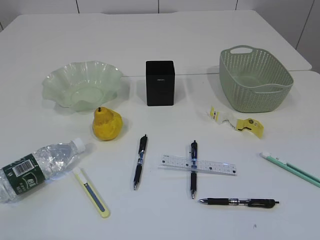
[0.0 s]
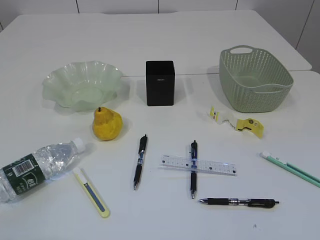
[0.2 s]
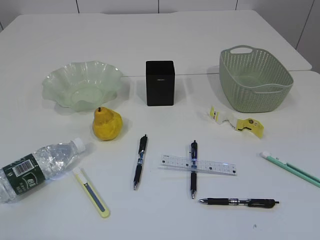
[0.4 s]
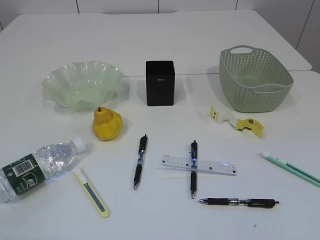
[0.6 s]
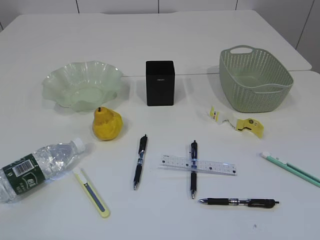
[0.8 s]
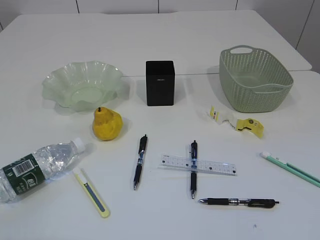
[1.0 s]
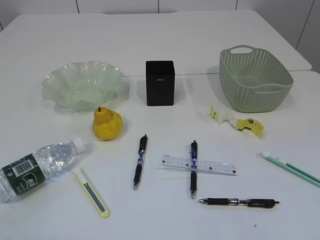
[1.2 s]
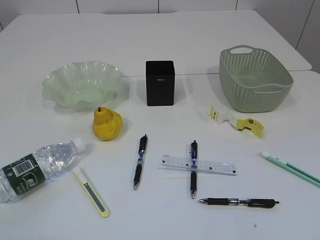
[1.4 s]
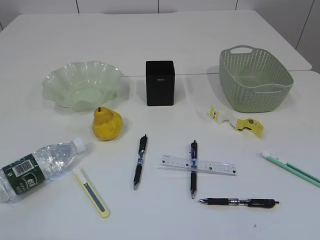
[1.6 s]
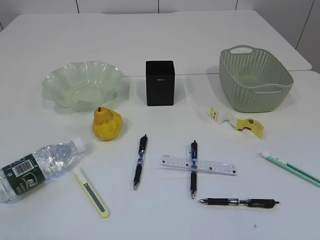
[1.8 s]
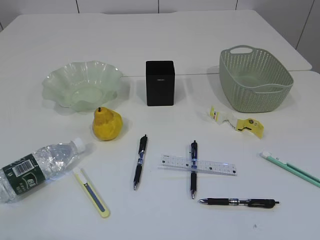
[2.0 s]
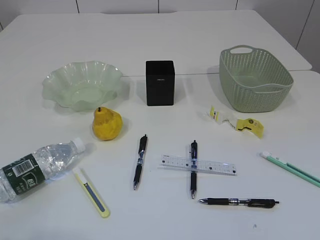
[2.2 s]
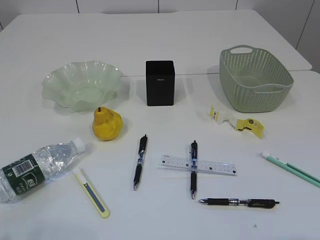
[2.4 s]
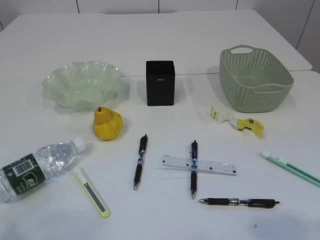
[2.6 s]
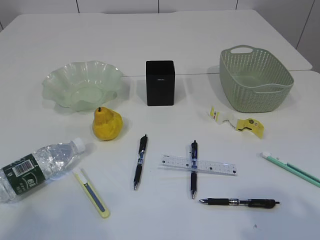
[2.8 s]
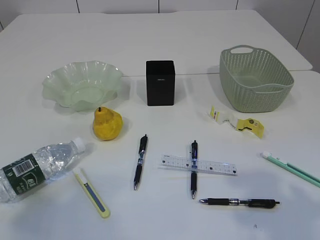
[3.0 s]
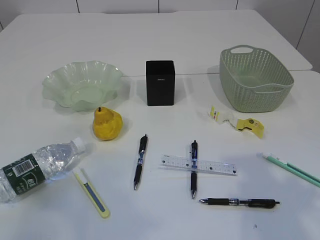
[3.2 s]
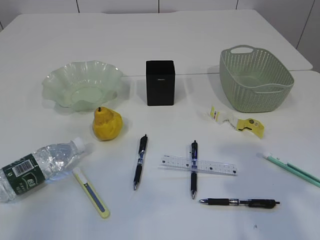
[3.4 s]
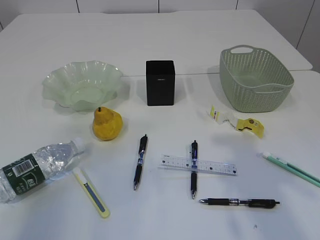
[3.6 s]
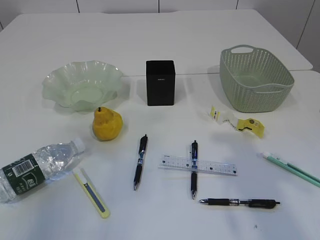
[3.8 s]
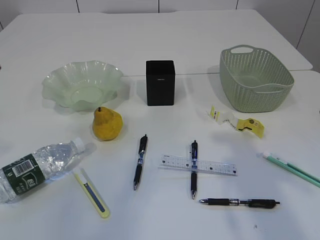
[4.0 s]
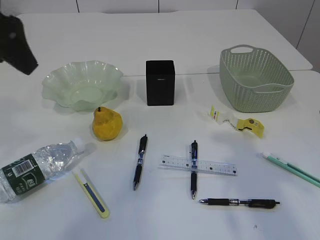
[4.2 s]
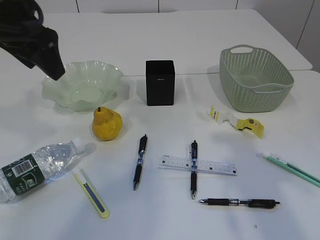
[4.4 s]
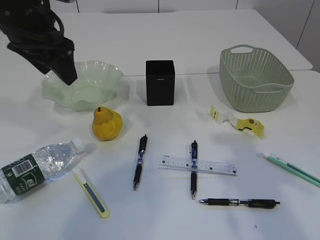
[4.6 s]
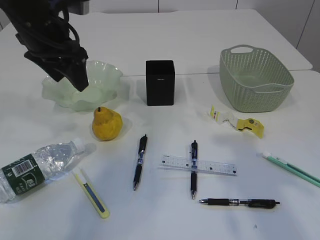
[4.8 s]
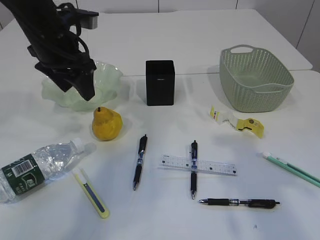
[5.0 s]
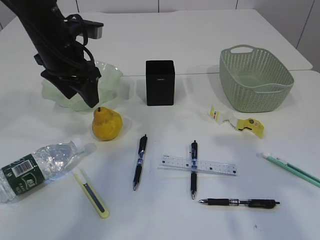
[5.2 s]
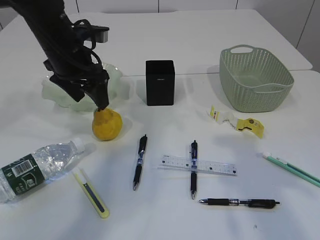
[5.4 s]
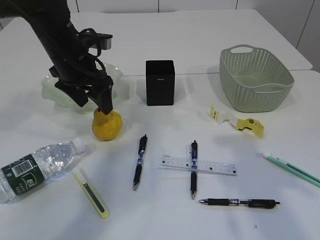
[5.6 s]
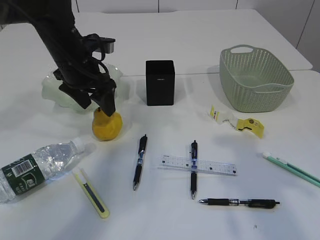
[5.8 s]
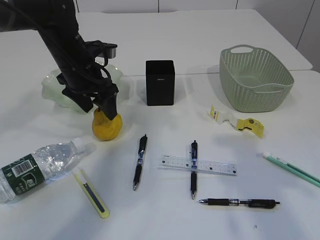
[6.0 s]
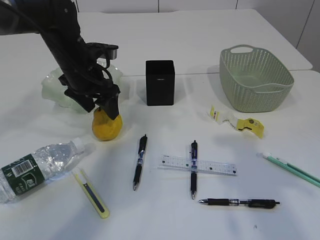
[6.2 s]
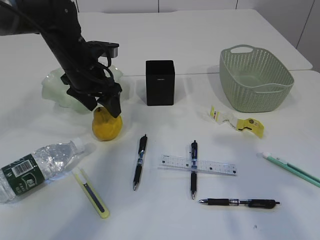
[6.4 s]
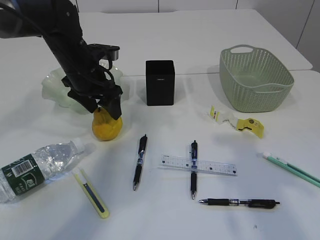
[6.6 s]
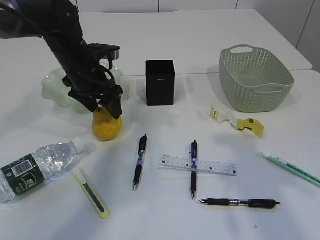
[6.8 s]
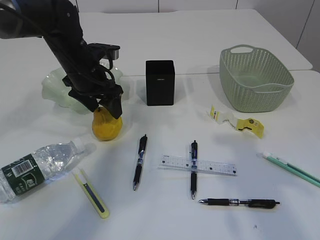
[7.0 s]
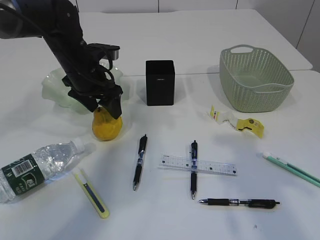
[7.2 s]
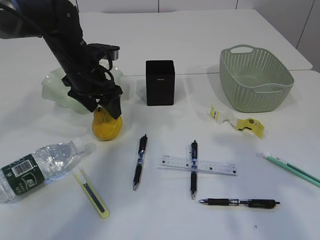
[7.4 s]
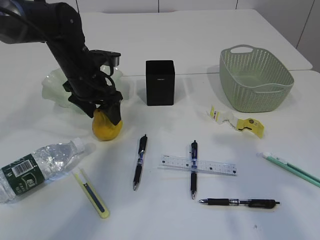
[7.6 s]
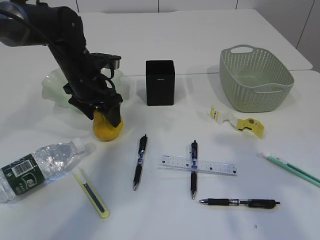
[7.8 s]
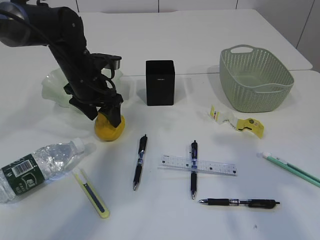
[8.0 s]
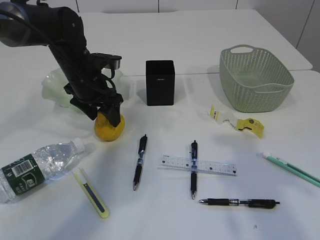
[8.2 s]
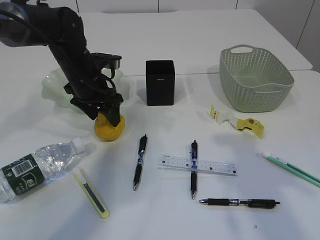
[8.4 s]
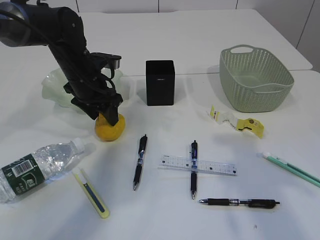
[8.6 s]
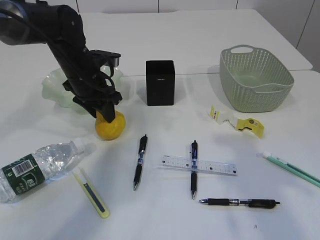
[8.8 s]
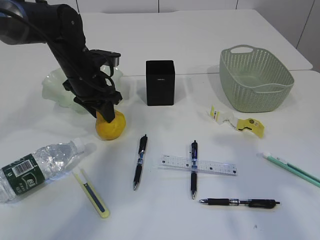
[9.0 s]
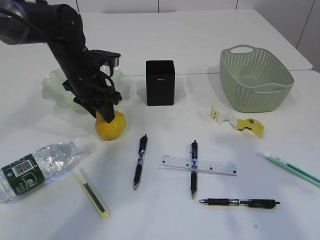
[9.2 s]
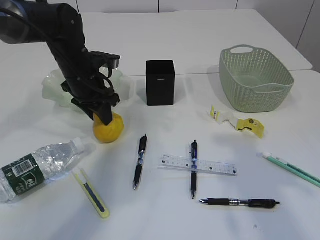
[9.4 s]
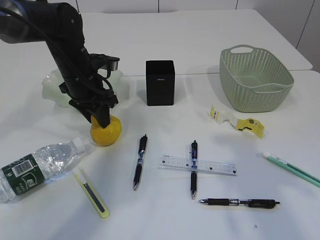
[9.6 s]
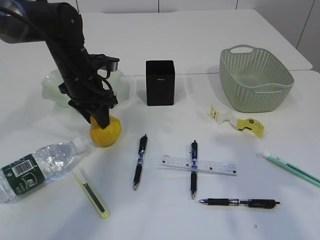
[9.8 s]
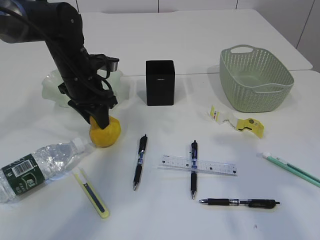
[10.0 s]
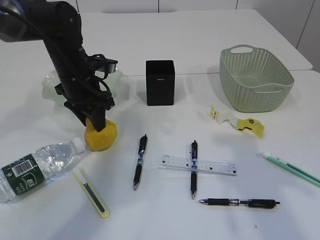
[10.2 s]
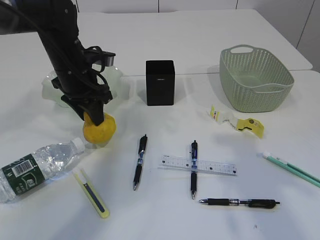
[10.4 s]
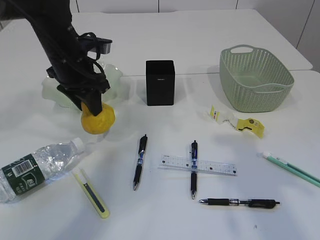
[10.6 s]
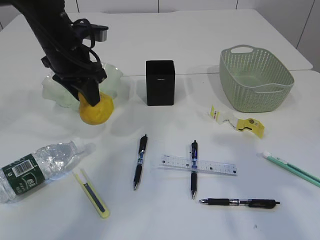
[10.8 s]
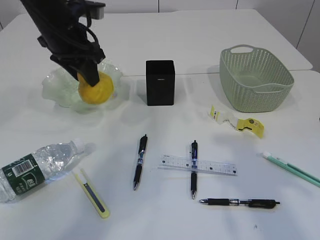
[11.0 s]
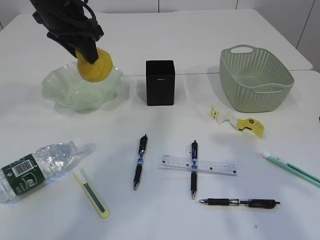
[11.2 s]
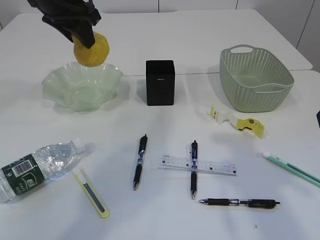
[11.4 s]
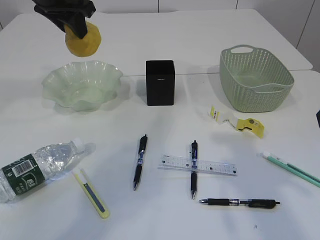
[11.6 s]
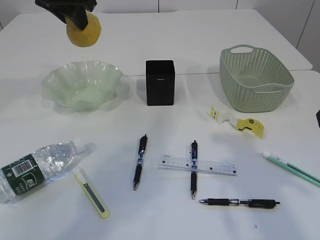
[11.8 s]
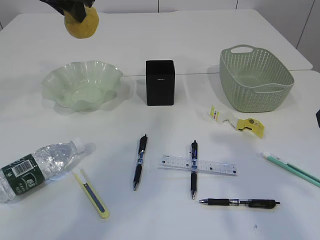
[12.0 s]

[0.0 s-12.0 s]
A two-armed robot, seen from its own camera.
1.6 to 3.0 s: The left gripper is displaced upward and forward by some 10 cm; the right gripper travels forward and upward by roughly 15 cm.
3.0 to 4.4 s: The left gripper travels forward and to the right by approximately 30 cm. The right gripper travels forward by about 10 cm.
4.4 to 6.0 s: The left gripper goes some 20 cm downward and forward.
6.0 to 7.6 s: There are only small adjustments of the grippers.
7.6 to 9.0 s: The left gripper closes its fingers.
9.0 to 10.4 s: The grippers move only a little.
10.4 to 12.0 s: The left gripper moves upward, roughly 15 cm.

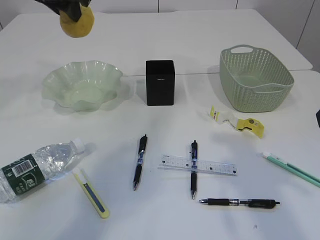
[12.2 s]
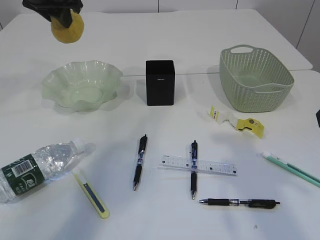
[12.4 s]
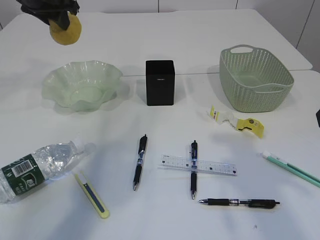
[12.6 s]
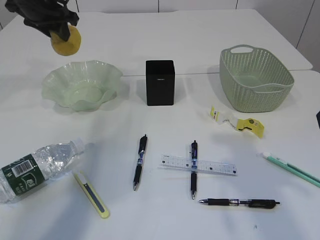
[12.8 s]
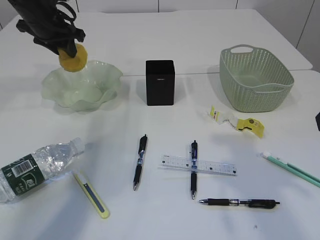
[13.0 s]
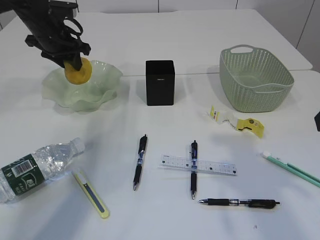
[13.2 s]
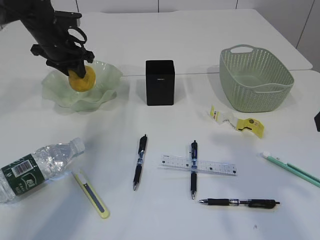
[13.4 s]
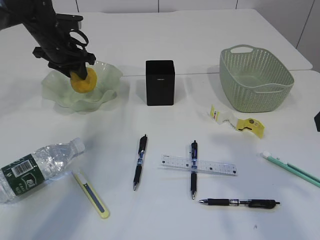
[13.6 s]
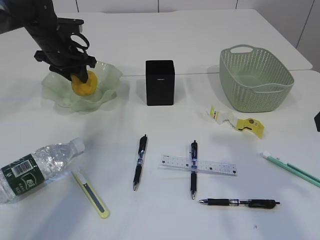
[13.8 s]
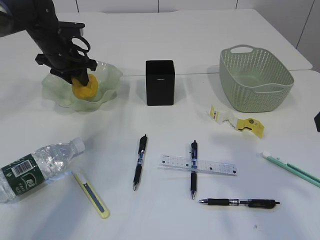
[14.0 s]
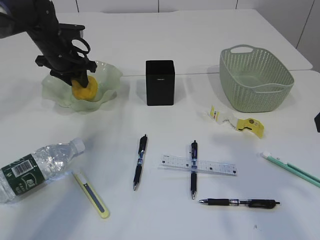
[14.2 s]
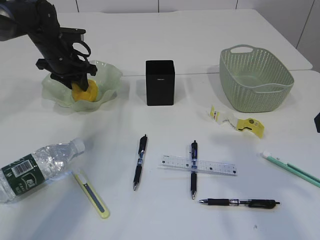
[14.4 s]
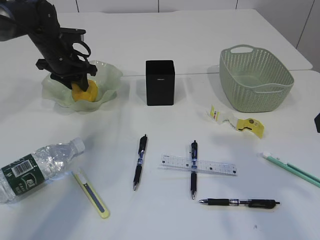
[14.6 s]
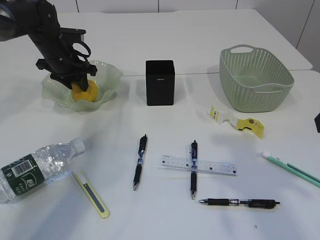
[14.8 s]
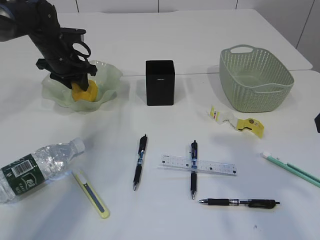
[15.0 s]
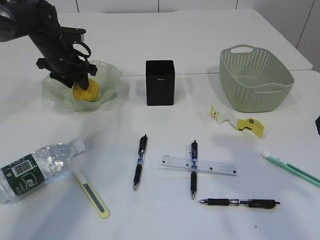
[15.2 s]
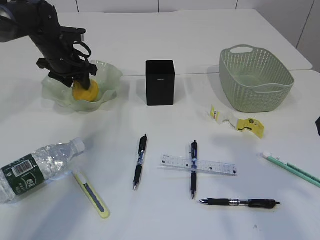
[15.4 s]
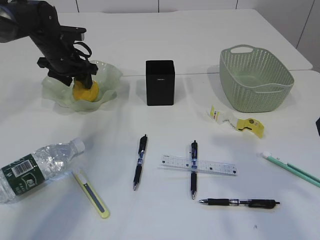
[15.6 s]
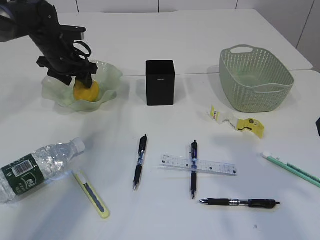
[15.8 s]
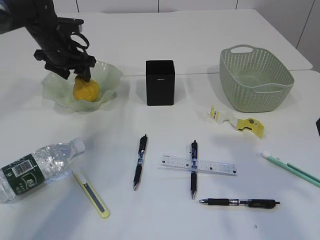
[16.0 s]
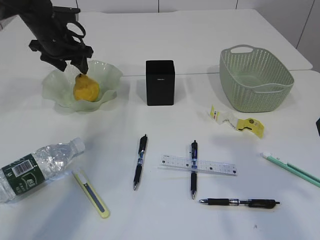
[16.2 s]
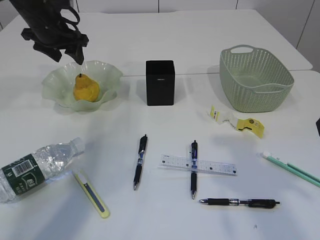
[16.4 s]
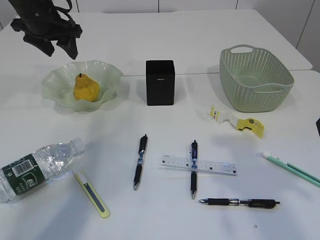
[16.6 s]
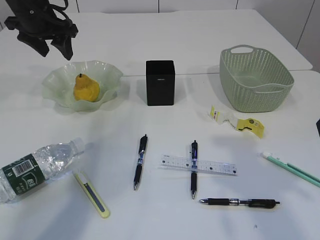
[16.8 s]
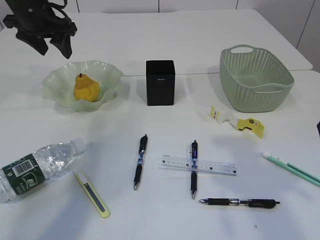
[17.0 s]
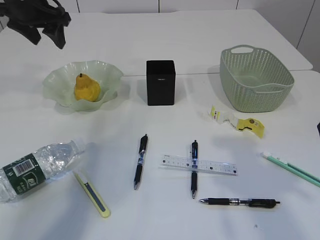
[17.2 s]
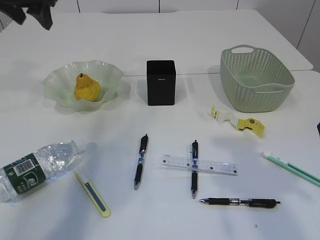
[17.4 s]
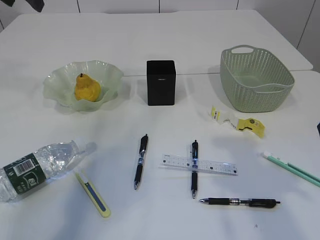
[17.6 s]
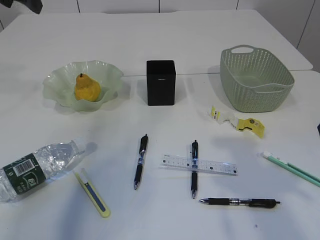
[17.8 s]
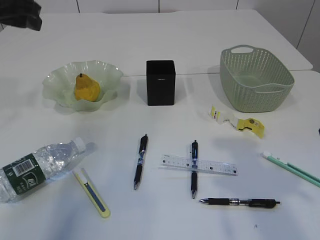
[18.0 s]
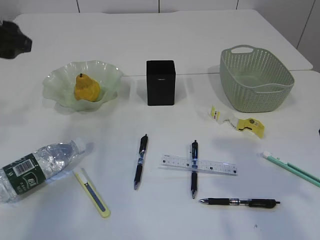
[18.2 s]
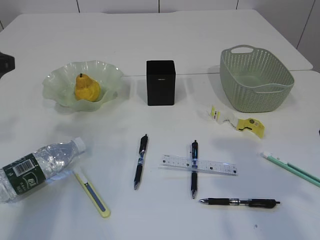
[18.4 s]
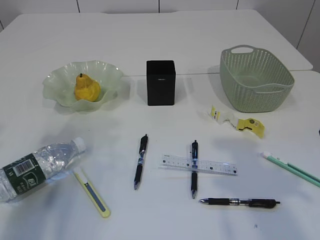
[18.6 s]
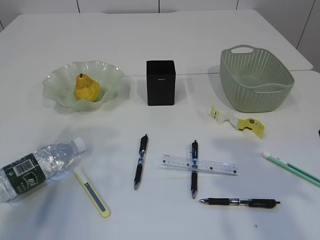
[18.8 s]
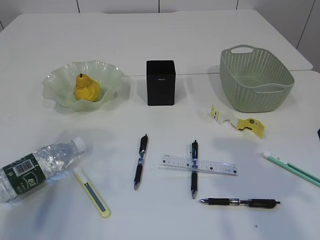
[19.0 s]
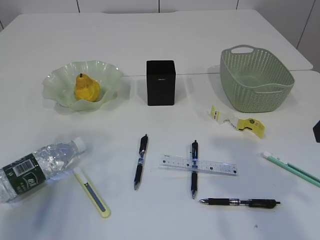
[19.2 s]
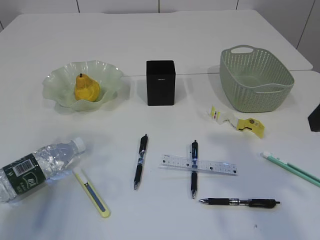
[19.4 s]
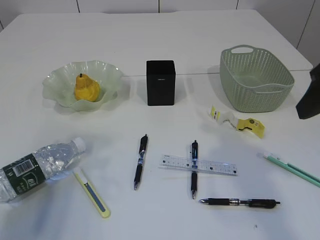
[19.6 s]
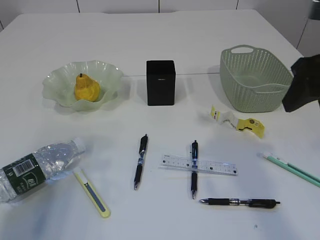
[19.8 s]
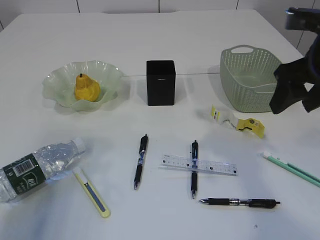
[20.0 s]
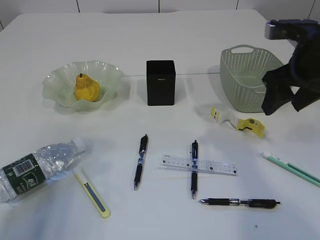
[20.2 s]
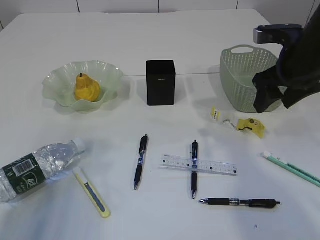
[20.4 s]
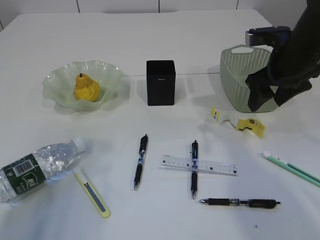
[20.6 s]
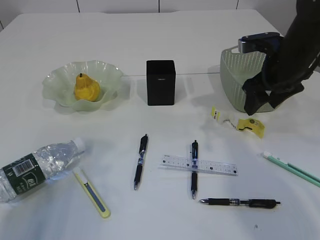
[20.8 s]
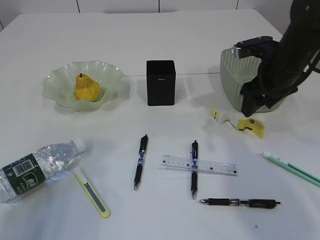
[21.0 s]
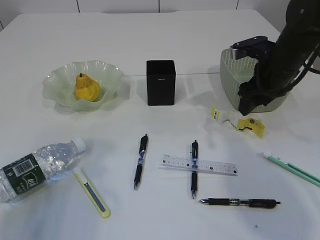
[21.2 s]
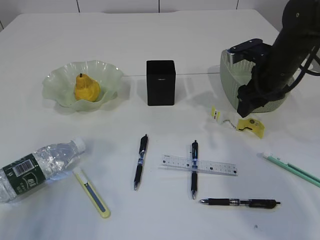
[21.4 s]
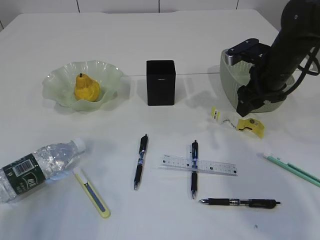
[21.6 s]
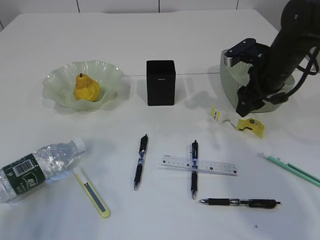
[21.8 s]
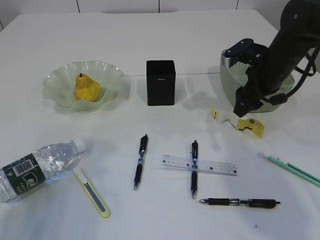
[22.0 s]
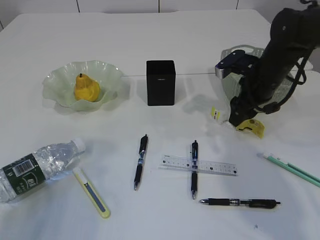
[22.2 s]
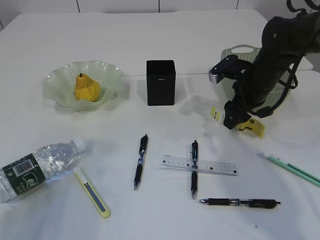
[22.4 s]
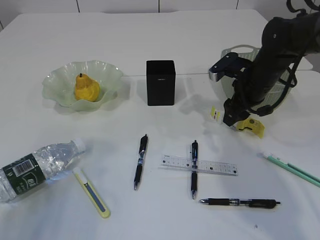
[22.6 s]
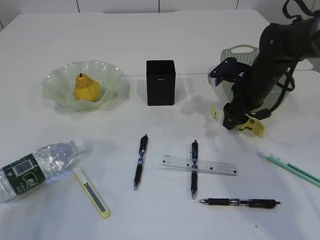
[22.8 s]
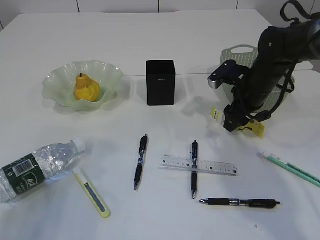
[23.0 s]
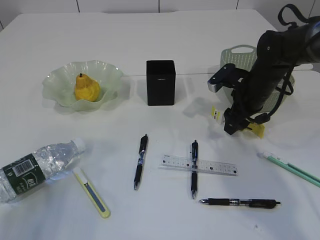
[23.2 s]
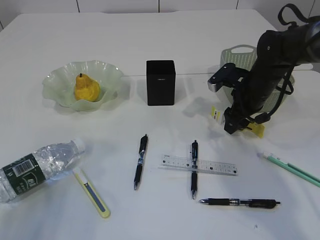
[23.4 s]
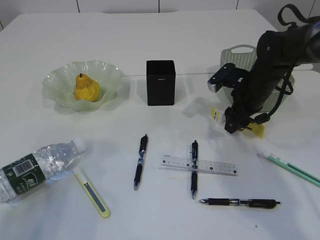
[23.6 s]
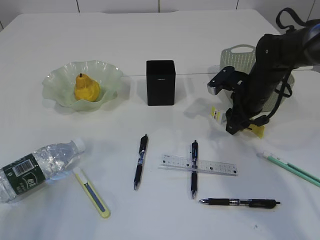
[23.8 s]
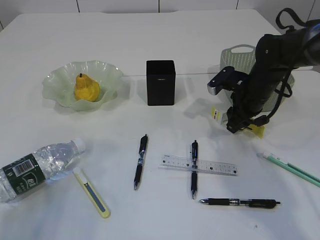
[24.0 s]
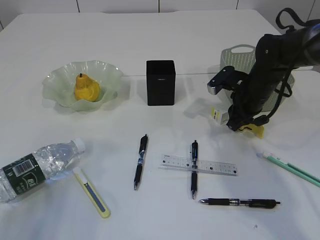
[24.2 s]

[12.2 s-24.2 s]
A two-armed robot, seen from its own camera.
Step, 12.2 to 16.6 s: Place the pear in the plate.
12.2 to 13.8 s: The left gripper shifts about 20 cm downward and forward.
13.8 to 15.2 s: The grippers move only a little.
15.2 to 16.6 s: The left gripper goes some 10 cm upward.
16.6 to 18.2 s: The left gripper moves backward, some 15 cm.
18.2 to 19.8 s: The left gripper goes about 15 cm backward; the right gripper shifts about 5 cm forward.
19.8 to 21.2 s: The right gripper moves forward and downward, some 20 cm.
21.2 to 22.6 s: The right gripper ends up some 5 cm from where it was.
22.6 to 24.2 s: The right gripper closes.
